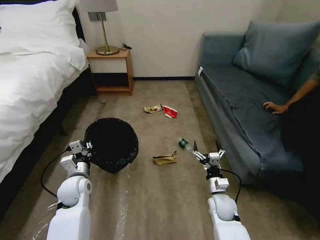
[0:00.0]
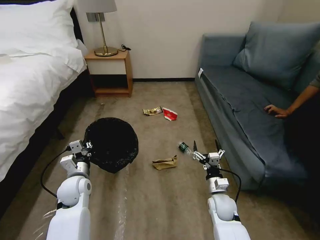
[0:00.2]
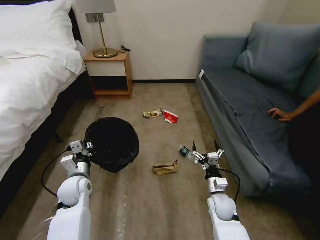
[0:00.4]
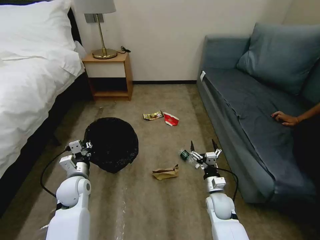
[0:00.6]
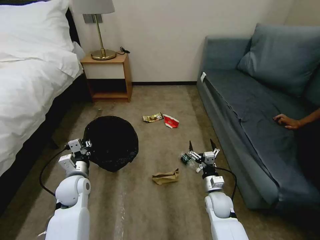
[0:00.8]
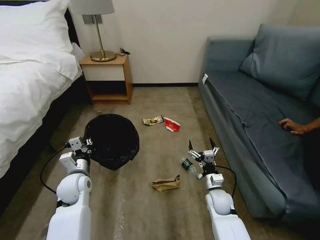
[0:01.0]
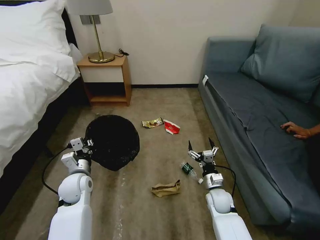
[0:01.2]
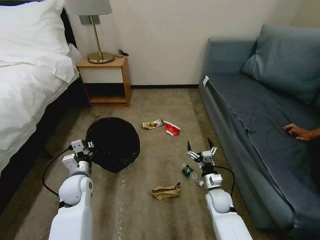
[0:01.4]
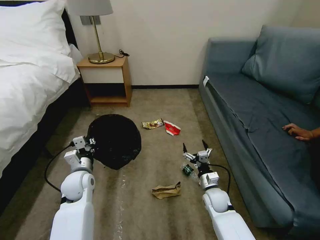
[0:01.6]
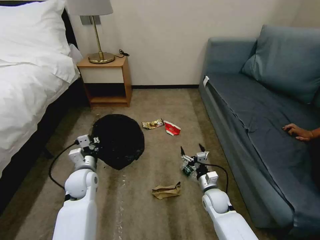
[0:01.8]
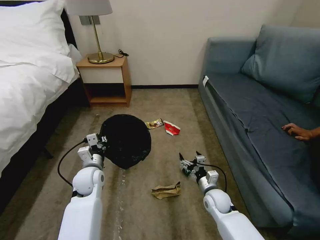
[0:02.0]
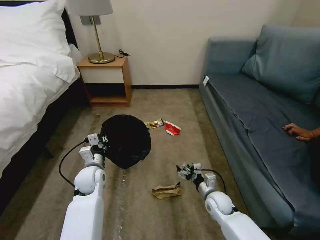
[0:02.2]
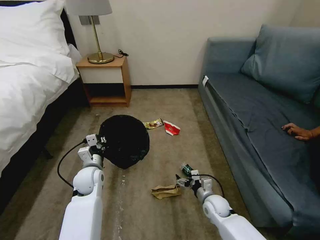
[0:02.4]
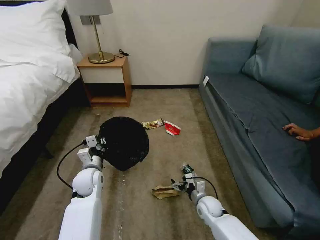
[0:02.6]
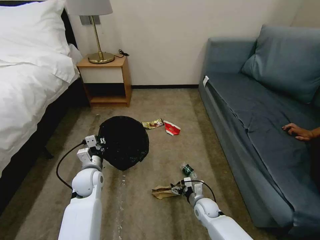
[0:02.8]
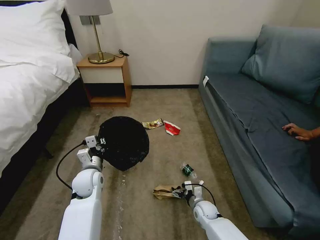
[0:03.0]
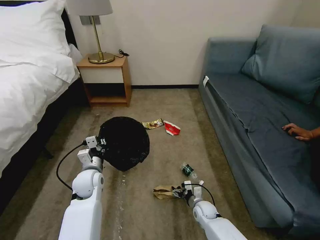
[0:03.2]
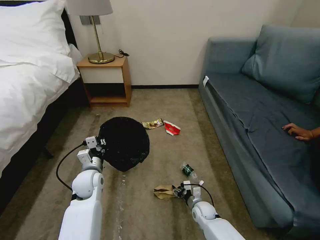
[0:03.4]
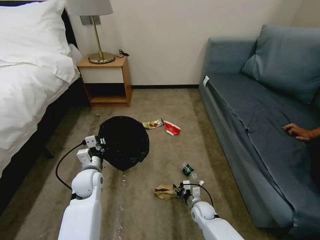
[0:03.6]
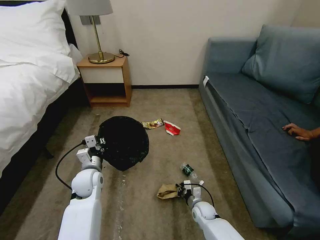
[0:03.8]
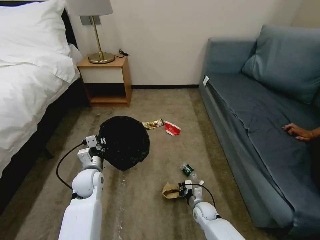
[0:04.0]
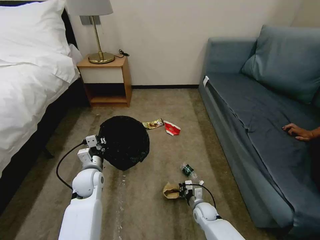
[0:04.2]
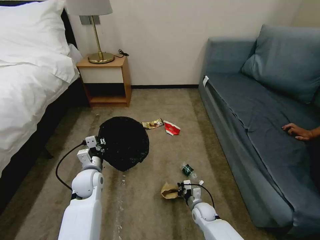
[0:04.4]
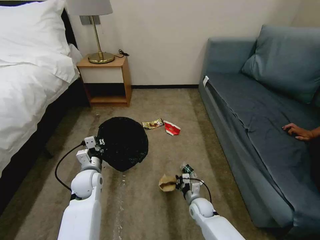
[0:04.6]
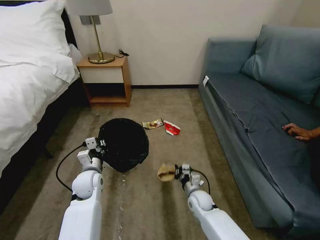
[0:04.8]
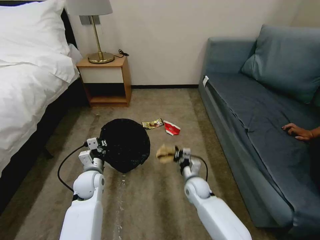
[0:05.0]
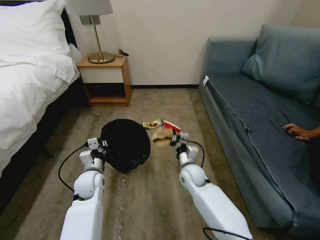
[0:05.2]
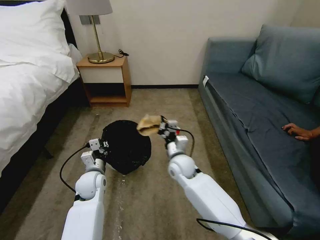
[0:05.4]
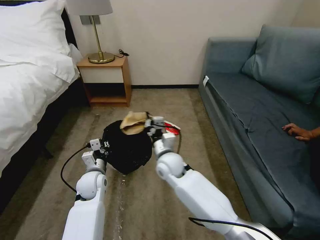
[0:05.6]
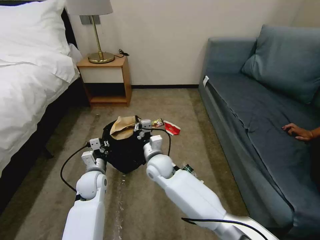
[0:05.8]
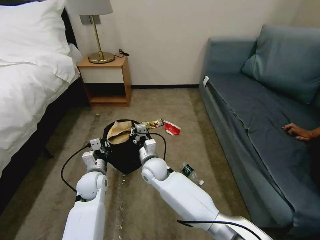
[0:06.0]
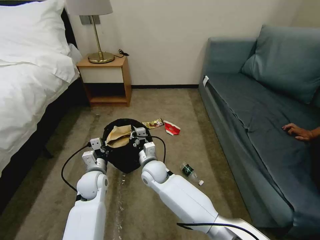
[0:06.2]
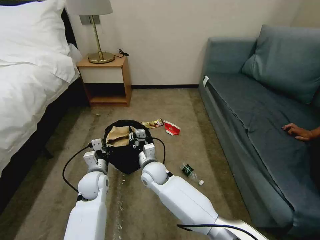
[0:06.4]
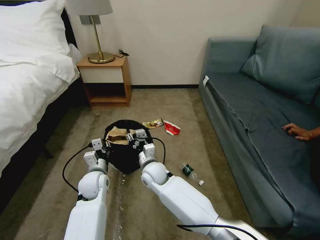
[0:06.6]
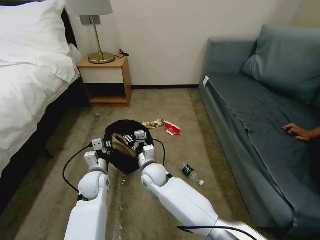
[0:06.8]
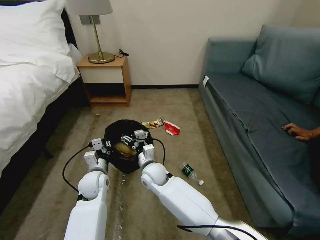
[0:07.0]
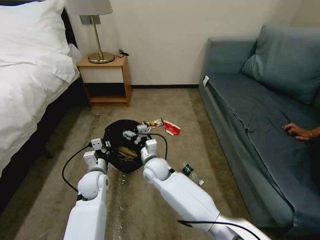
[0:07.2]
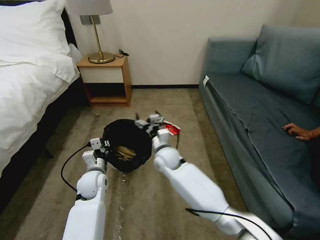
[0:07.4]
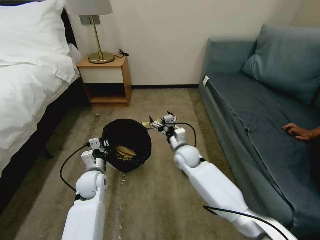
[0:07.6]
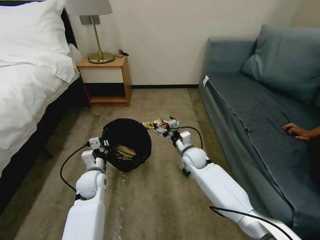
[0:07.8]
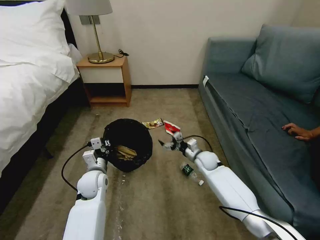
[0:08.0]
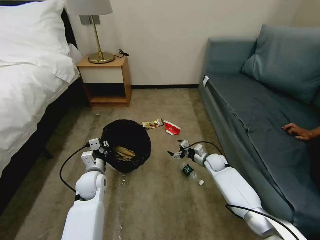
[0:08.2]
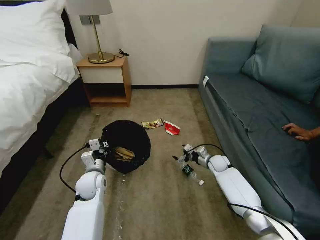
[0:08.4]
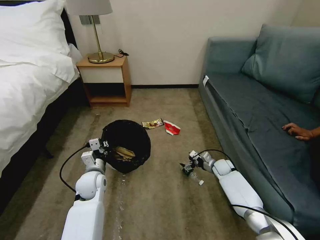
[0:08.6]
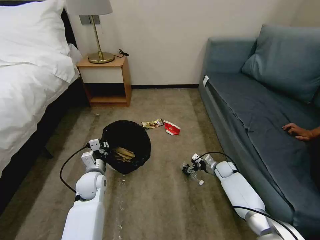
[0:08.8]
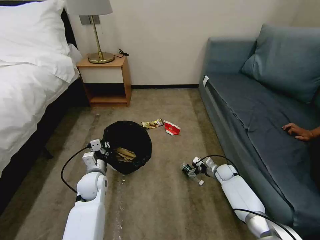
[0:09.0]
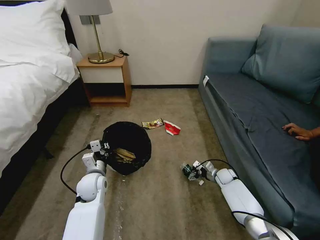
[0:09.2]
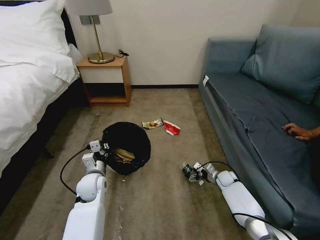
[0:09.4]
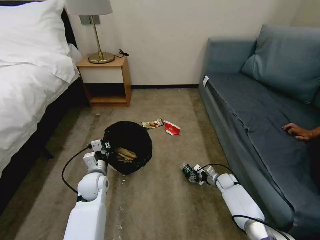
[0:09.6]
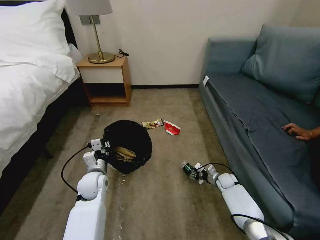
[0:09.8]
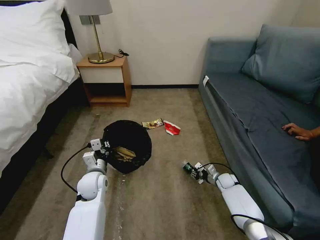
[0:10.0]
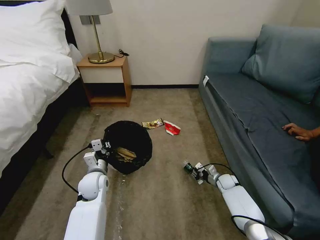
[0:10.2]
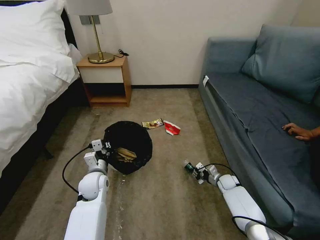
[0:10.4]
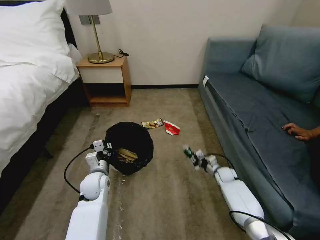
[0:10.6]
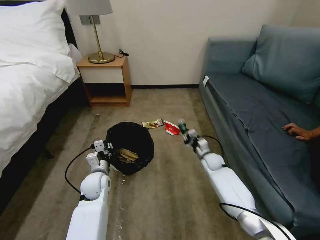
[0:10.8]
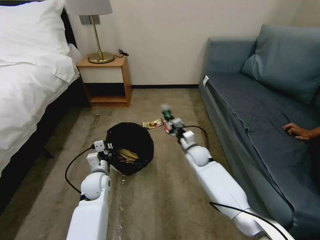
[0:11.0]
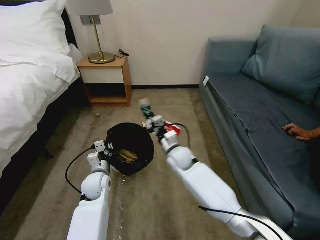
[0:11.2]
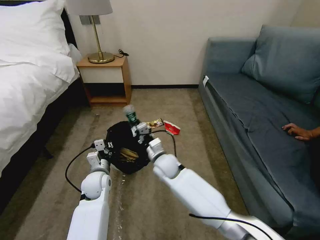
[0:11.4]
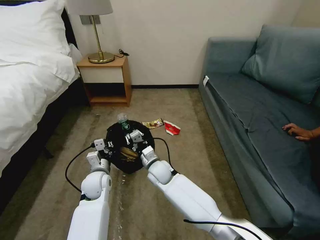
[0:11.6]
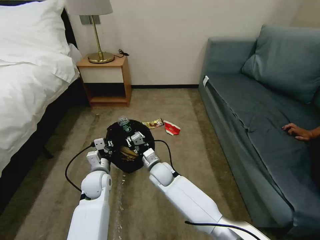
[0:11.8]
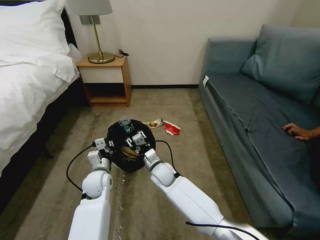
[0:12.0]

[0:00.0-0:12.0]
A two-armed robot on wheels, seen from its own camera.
Task of the whole recording: Pick up the trash bin, then pick up the garbage on the floor and place it into the trash bin.
0:01.6 to 0:03.0: The right gripper heads downward, covering some 10 cm.
0:03.0 to 0:04.4: The right gripper closes up.
0:04.4 to 0:06.0: The right gripper goes about 30 cm to the left, upward and forward.
0:06.0 to 0:07.6: The right gripper shifts about 15 cm to the right and forward, and opens.
0:07.6 to 0:09.0: The right gripper heads to the right and downward, covering roughly 30 cm.
0:09.0 to 0:10.4: The right gripper moves about 5 cm, and closes up.
0:10.4 to 0:12.0: The right gripper is displaced to the left and upward by some 35 cm.

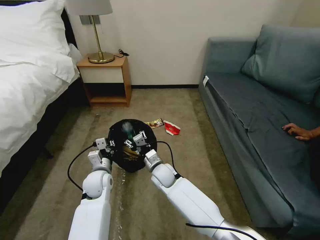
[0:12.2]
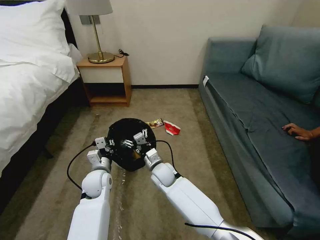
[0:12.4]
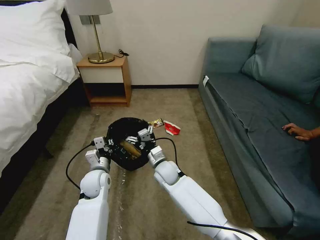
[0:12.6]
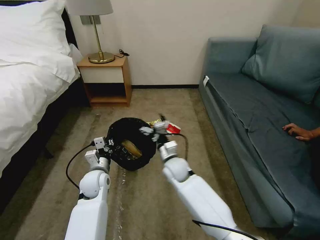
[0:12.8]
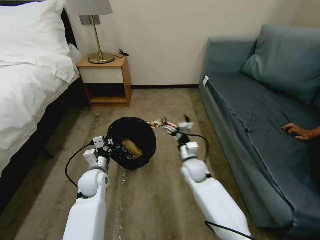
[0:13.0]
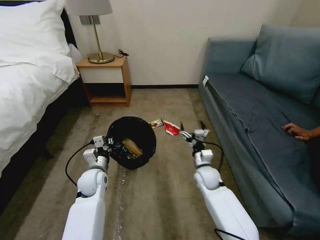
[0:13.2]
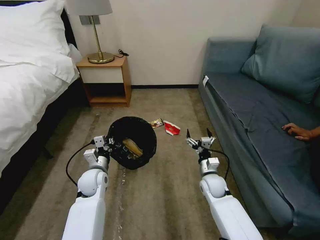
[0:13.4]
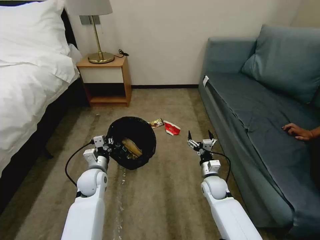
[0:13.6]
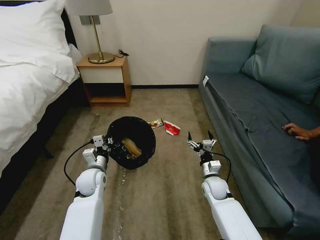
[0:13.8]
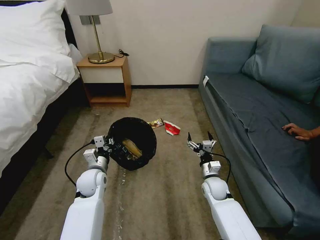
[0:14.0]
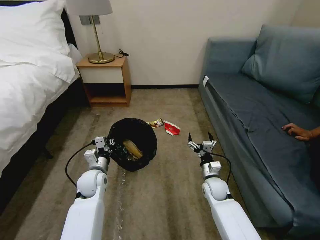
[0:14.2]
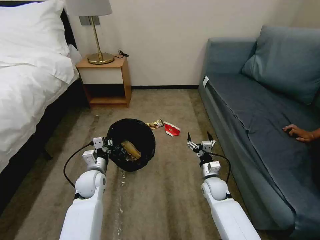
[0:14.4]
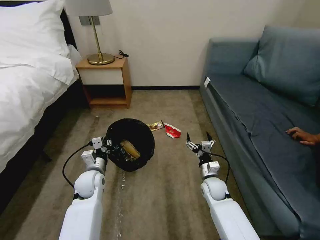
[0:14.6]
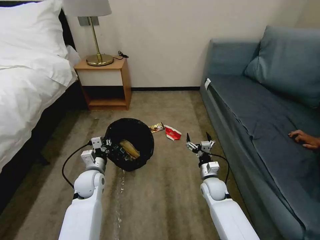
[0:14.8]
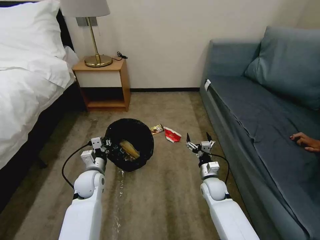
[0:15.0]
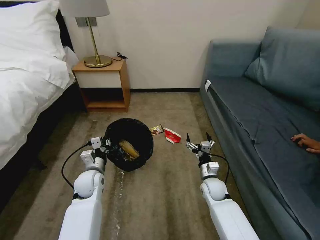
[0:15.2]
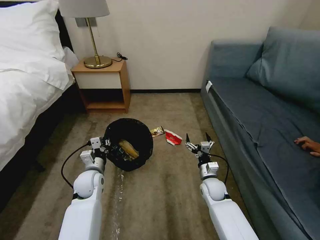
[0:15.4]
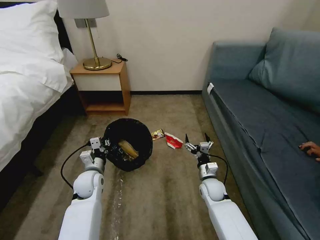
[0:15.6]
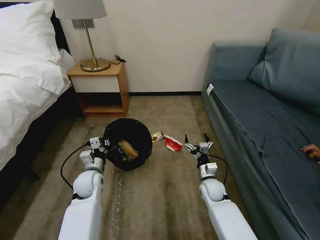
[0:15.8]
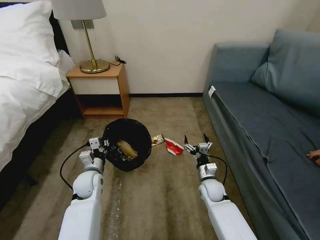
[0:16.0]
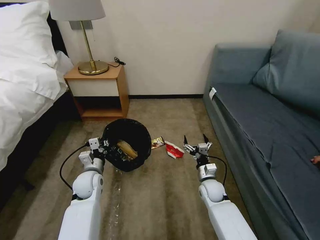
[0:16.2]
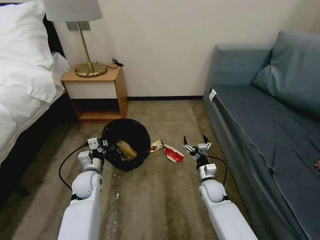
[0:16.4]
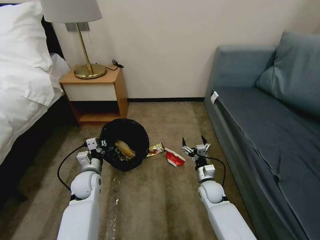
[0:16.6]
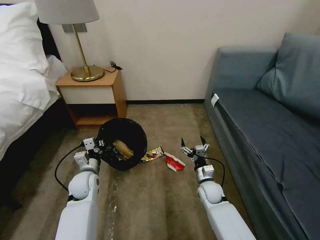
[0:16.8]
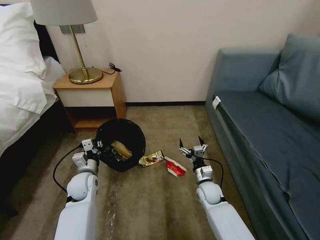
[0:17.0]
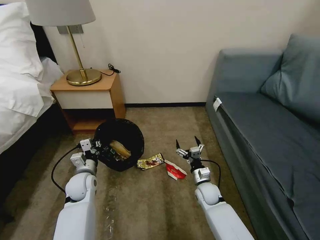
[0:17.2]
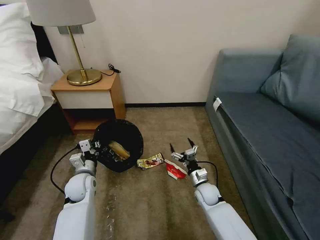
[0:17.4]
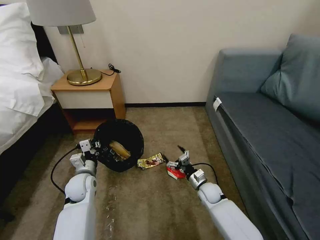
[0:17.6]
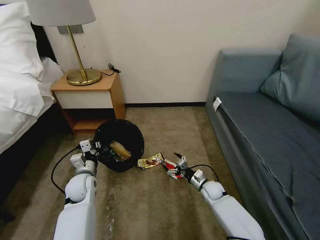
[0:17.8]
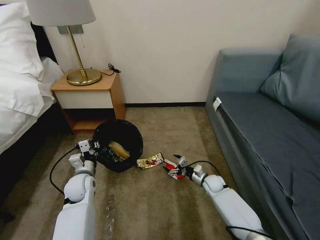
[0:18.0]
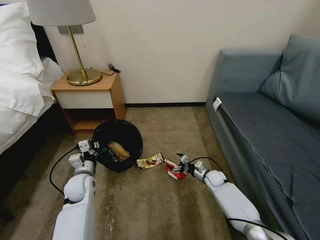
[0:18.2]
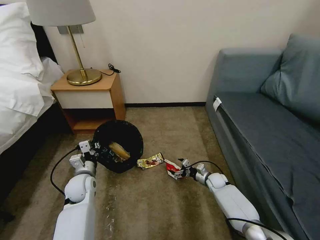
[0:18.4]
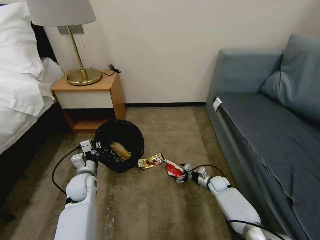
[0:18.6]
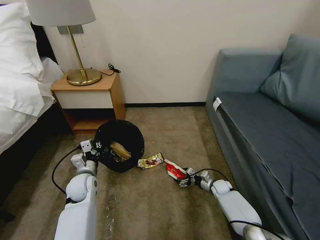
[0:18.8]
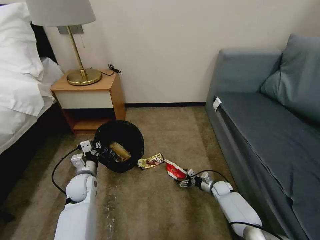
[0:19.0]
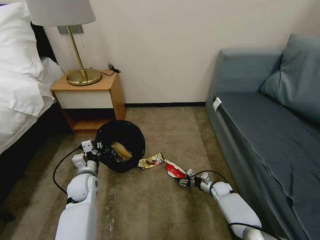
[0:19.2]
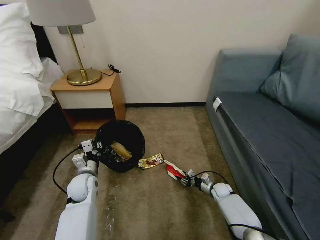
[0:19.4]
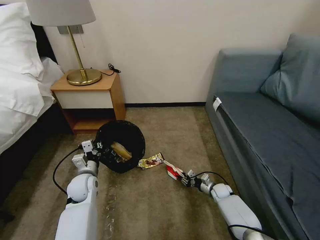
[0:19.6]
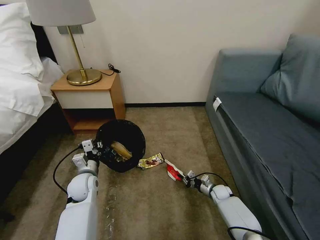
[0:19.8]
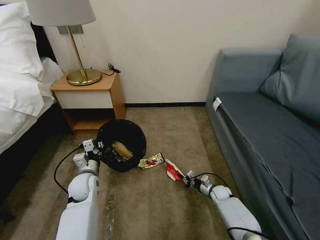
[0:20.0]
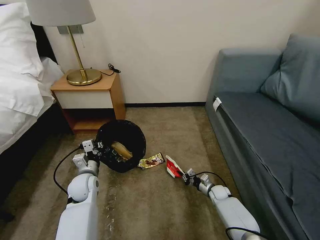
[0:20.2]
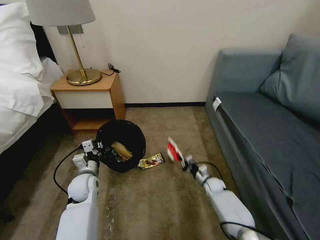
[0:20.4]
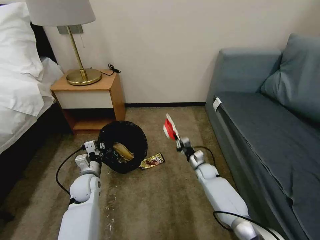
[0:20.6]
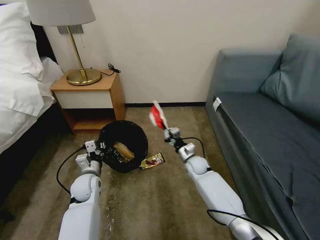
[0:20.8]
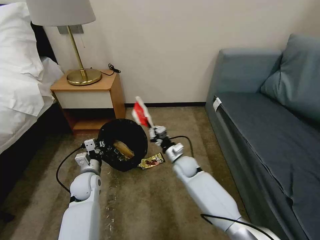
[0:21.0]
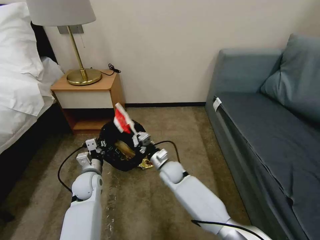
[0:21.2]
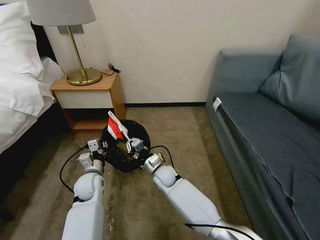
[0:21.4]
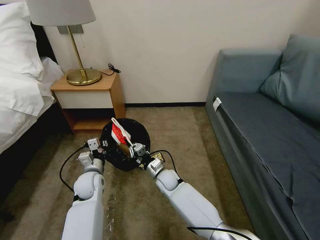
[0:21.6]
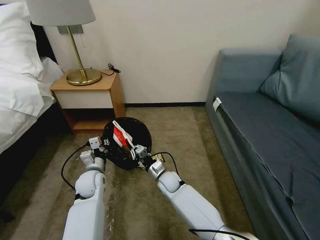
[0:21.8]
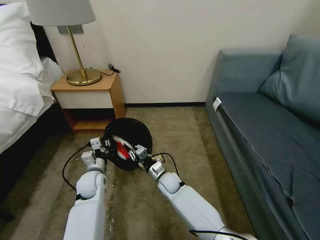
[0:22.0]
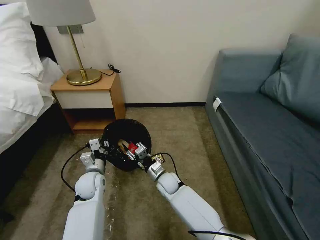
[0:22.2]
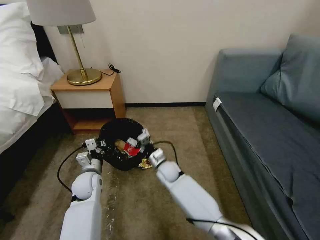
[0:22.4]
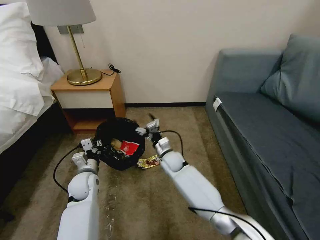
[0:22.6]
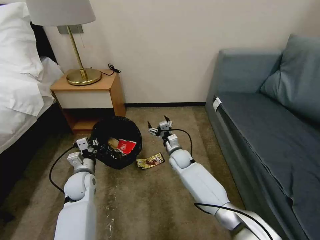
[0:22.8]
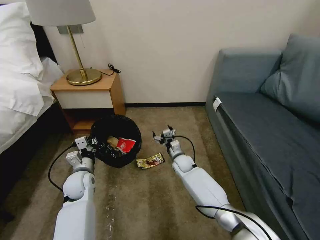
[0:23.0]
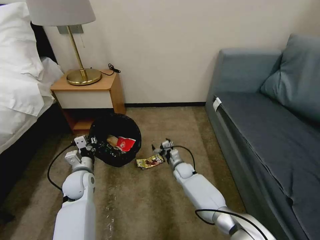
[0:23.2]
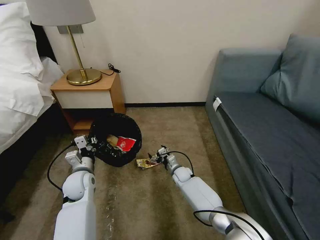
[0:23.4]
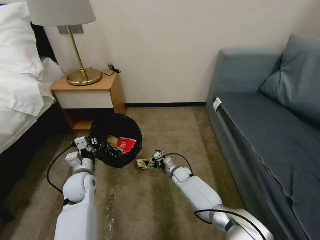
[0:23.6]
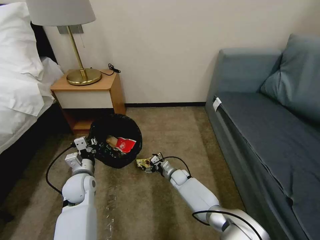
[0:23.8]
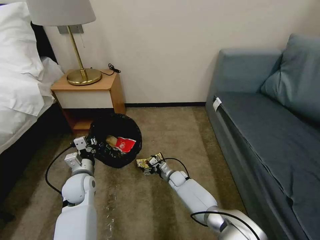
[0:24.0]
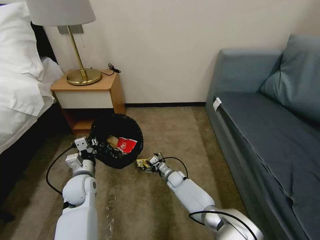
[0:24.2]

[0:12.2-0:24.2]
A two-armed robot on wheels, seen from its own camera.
Task of the whole recording: Pick up the trash bin, then pick up the garbage on the floor and place it into the trash bin.
0:12.2 to 0:13.8: The right gripper is displaced to the right by roughly 20 cm.
0:13.8 to 0:15.2: Both grippers stay put.
0:16.6 to 0:18.2: The right gripper moves forward, to the right and downward, roughly 10 cm.
0:18.2 to 0:19.8: The right gripper moves downward, roughly 5 cm, and closes up.
0:19.8 to 0:21.2: The right gripper goes some 30 cm to the left and upward.
0:21.2 to 0:22.6: The right gripper opens its fingers.
0:22.6 to 0:24.2: The right gripper shifts roughly 15 cm downward.
